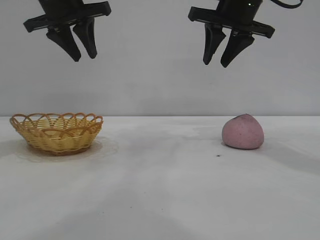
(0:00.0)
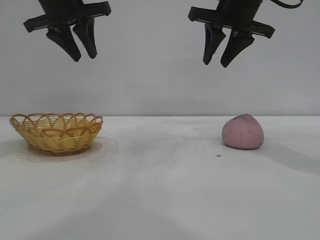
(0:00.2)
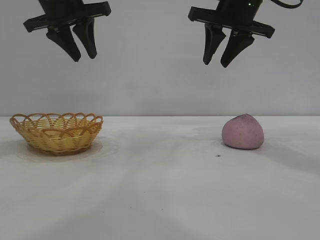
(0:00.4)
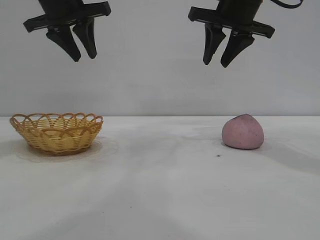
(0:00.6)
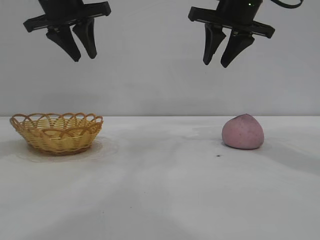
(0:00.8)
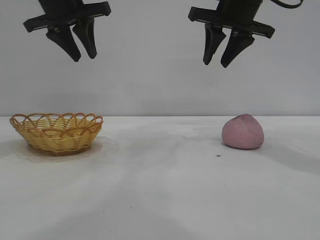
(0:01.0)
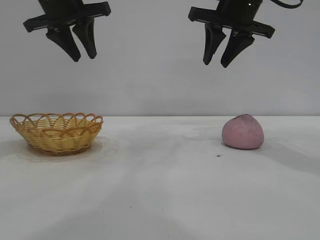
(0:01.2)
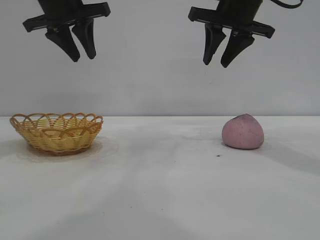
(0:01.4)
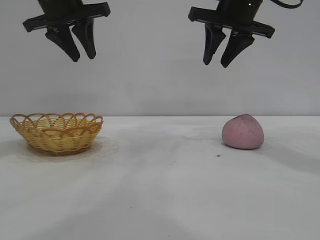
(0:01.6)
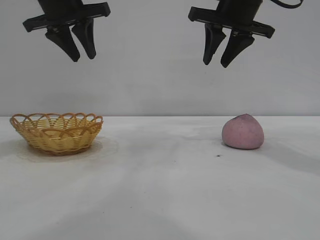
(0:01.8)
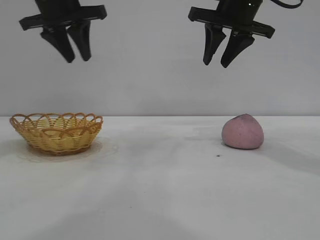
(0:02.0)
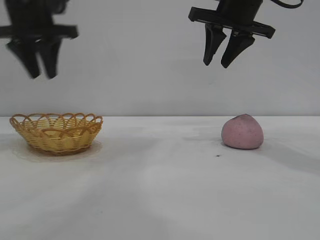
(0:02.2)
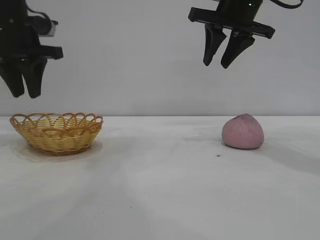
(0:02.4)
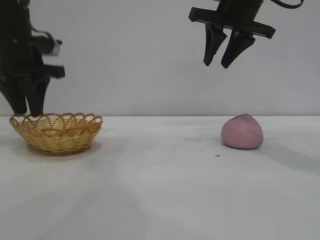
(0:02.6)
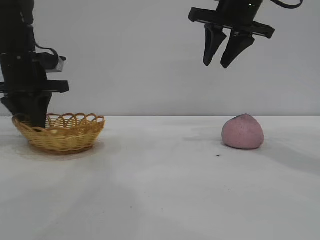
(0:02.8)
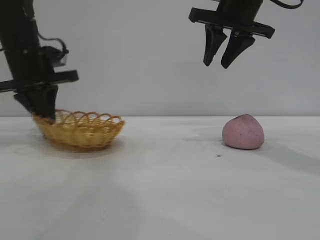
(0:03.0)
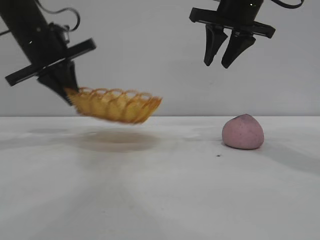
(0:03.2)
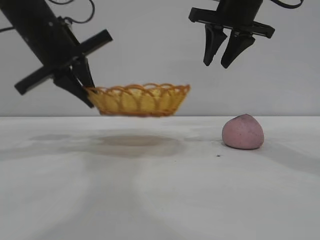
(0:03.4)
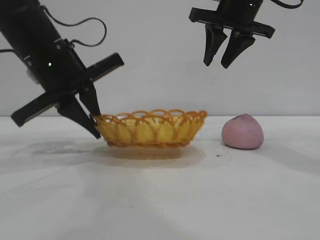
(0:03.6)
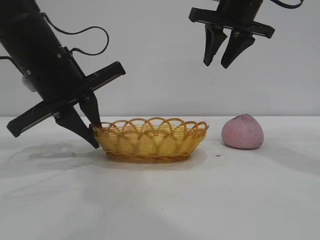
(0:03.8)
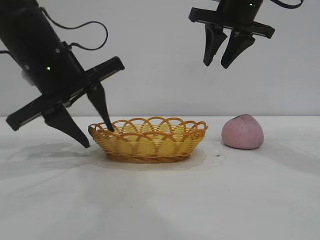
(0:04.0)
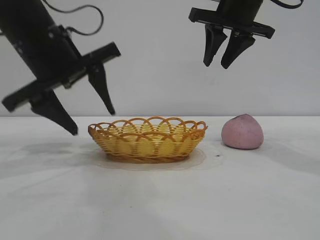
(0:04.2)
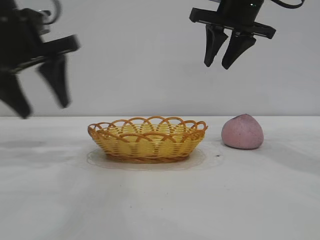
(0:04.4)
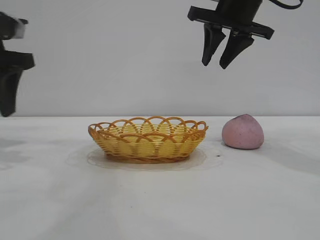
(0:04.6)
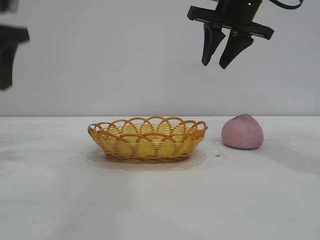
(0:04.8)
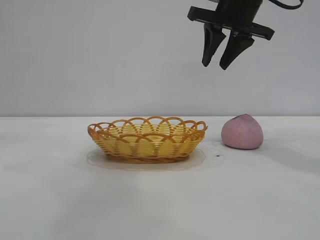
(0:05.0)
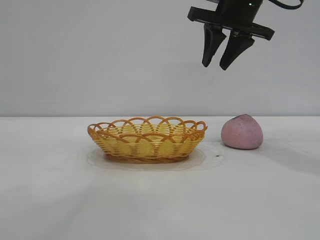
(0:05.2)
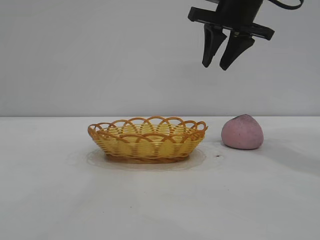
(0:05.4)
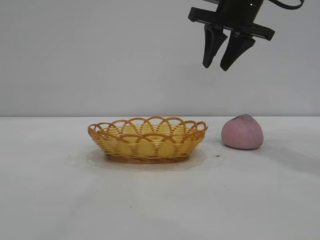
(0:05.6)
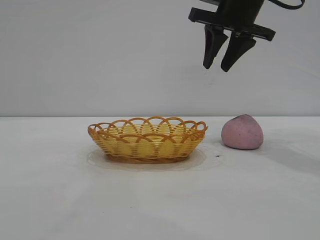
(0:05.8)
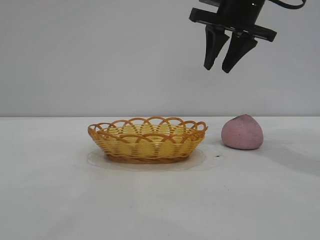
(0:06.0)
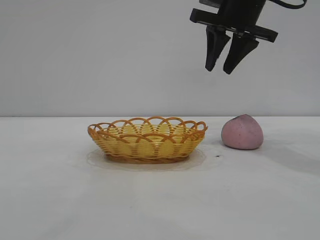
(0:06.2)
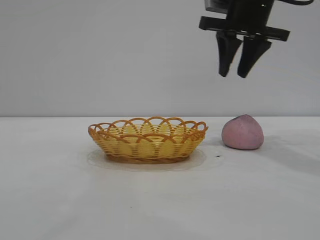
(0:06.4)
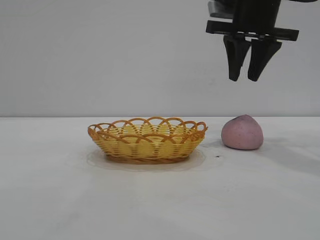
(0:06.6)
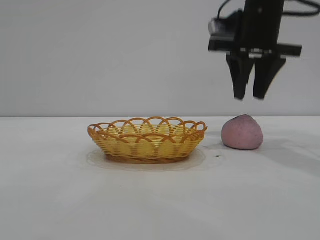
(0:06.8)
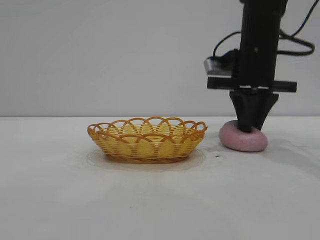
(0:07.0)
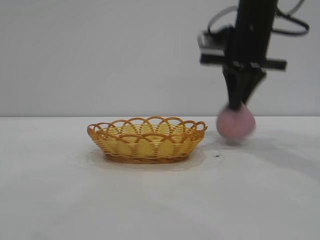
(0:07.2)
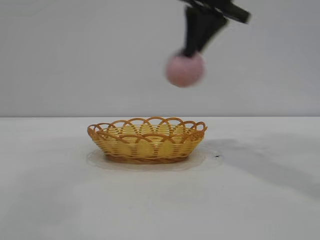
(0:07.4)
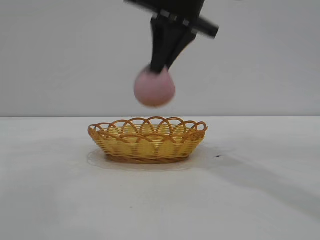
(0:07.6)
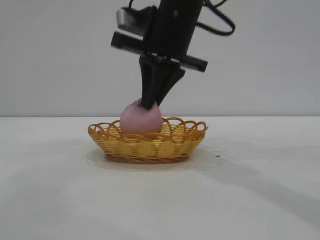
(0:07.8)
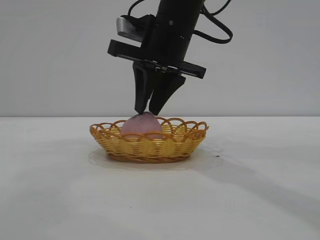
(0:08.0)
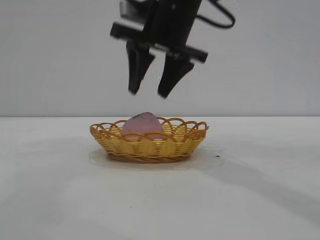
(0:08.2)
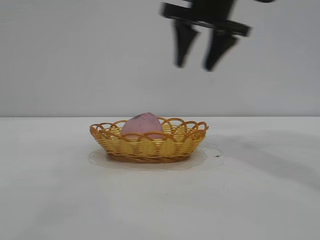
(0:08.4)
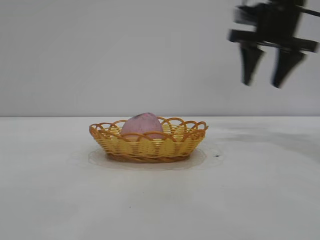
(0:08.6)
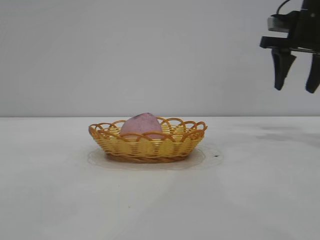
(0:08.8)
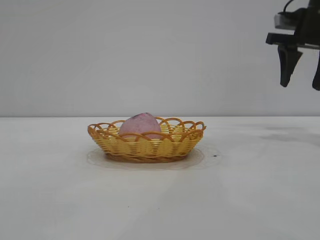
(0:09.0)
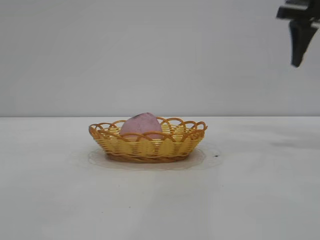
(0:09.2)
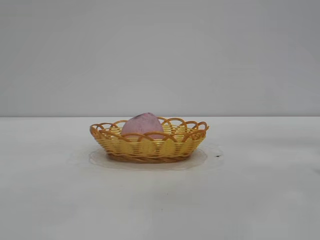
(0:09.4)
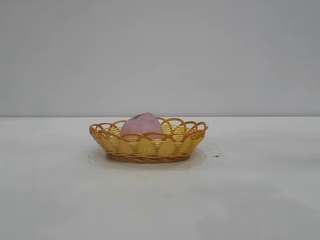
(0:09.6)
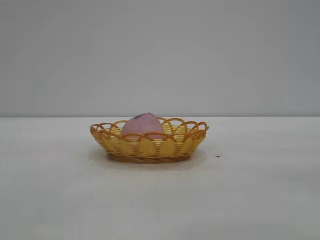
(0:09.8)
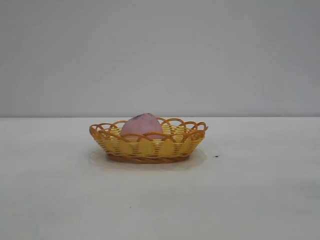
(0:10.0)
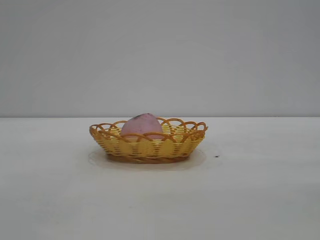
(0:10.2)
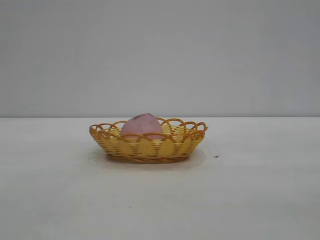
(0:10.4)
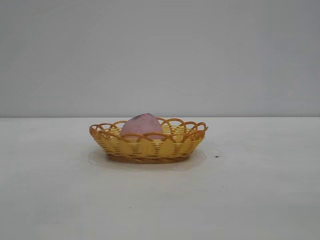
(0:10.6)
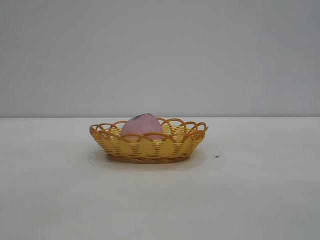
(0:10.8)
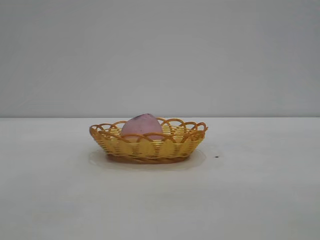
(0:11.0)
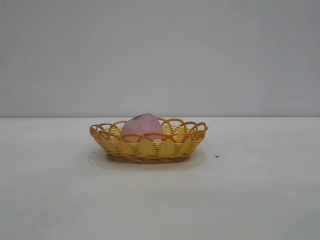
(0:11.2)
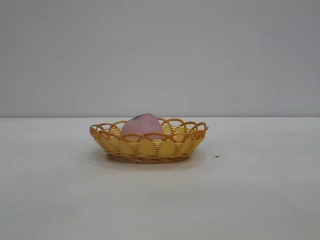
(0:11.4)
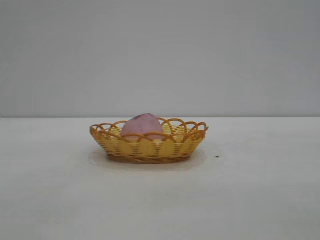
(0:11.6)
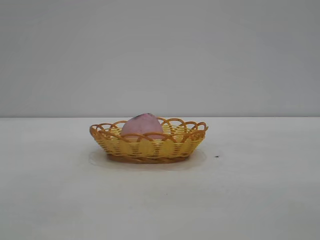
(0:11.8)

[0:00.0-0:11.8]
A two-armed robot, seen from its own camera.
Task of the whole recording: pick up the peach and put it into the basket.
Step, 0:00.0 to 0:04.2: Move the basket to the center of view.
Step, 0:04.4 to 0:07.2: Pick up the peach.
Step, 0:07.4 to 0:08.2: place the peach into the basket.
